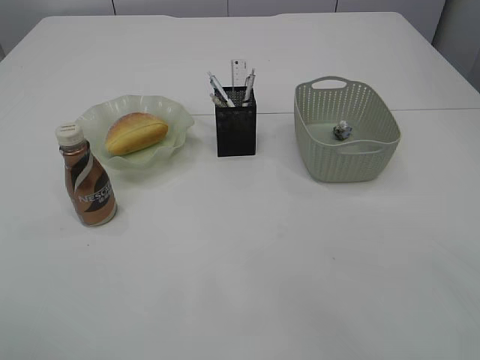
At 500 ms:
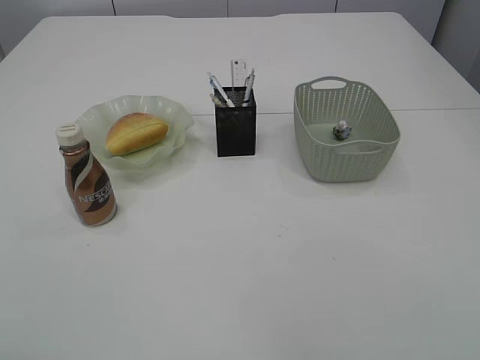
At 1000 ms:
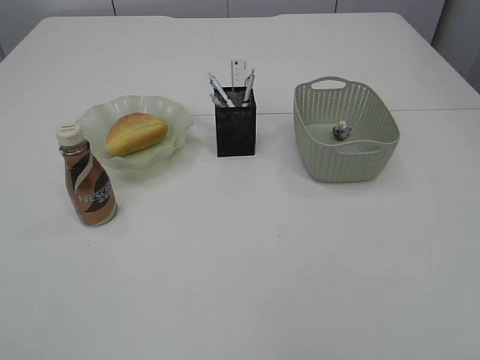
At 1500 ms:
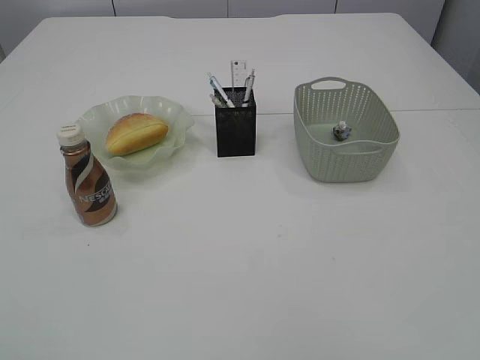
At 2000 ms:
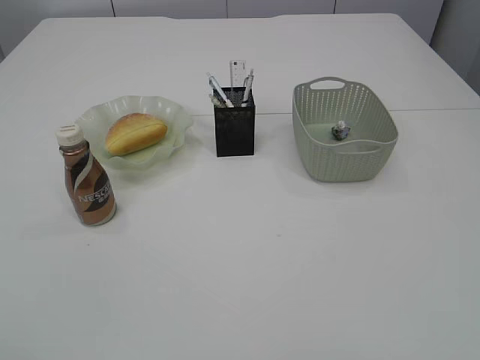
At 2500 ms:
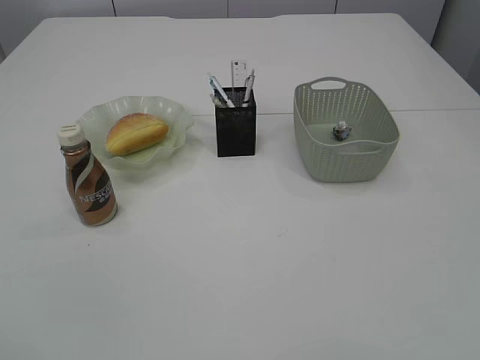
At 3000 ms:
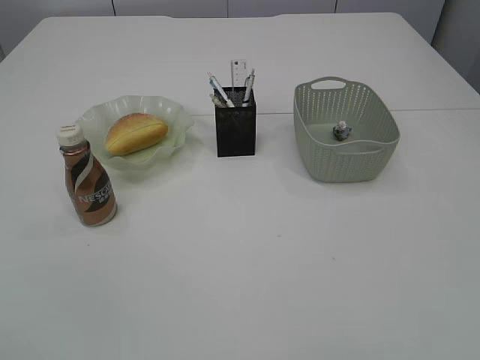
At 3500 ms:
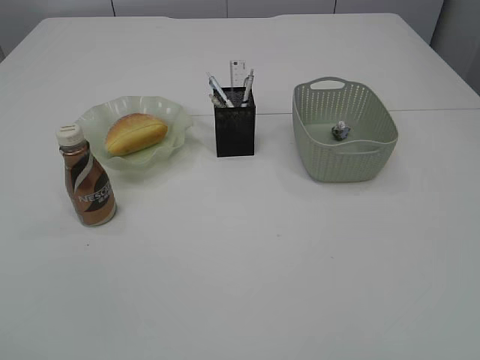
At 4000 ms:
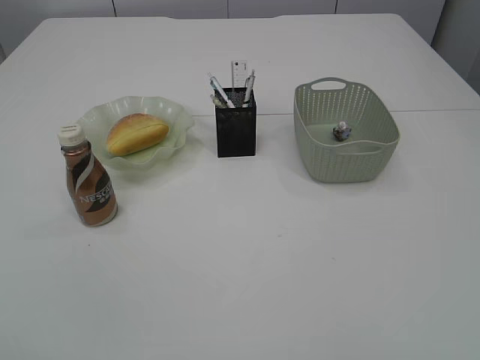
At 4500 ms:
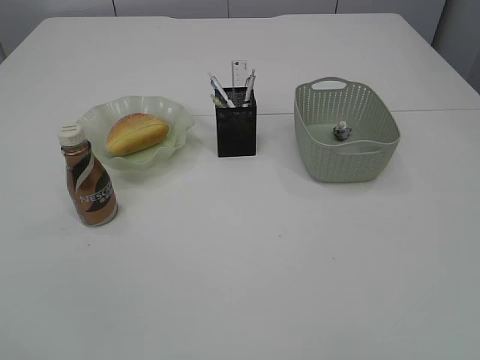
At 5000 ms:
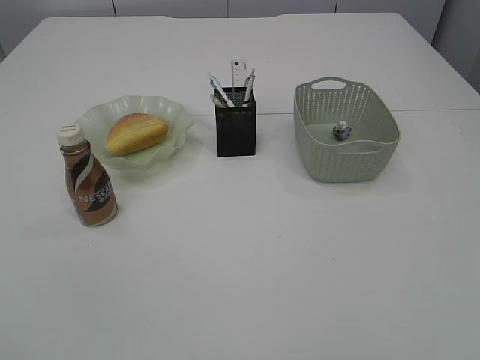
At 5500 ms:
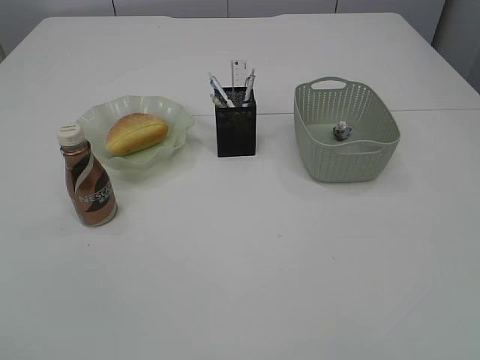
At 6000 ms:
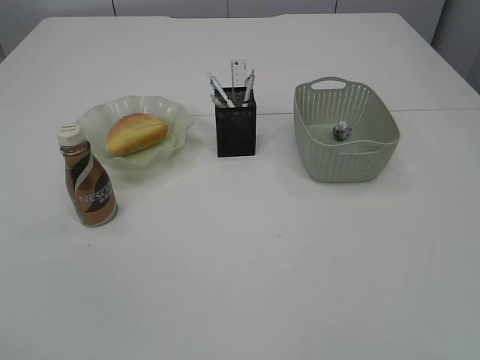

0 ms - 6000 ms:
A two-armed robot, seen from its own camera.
0 ms - 2000 ms: The right gripper is displaced backward by approximately 40 cm. Meanwhile the left gripper goes some 25 cm backward.
2000 ms - 4000 ms: The left gripper ends up roughly 5 cm from where it was; the right gripper shifts about 5 cm downward.

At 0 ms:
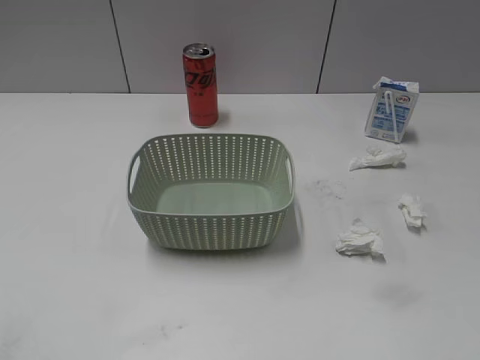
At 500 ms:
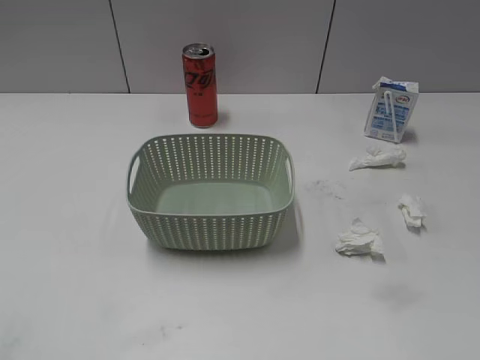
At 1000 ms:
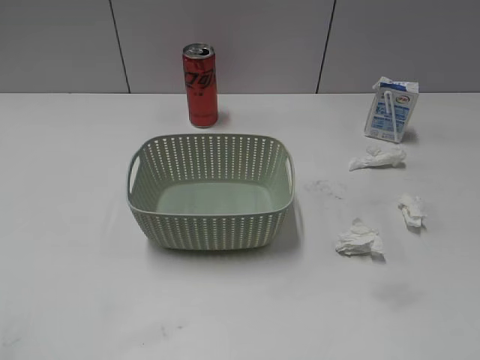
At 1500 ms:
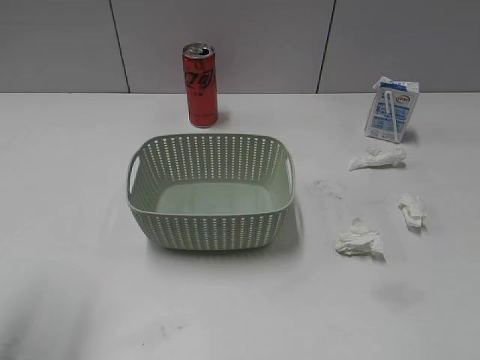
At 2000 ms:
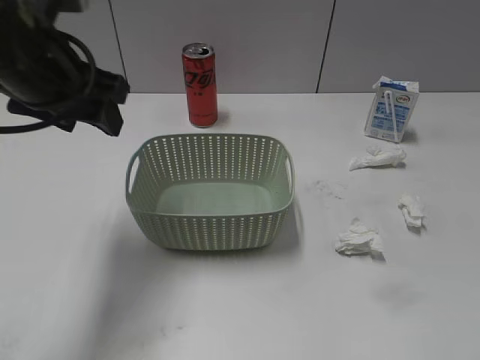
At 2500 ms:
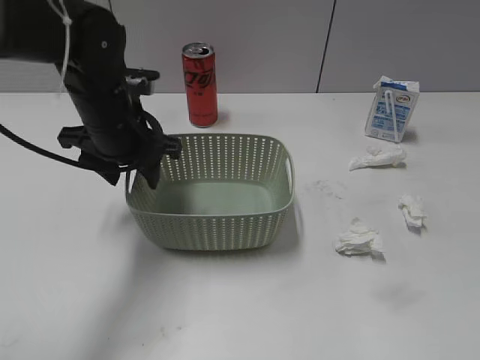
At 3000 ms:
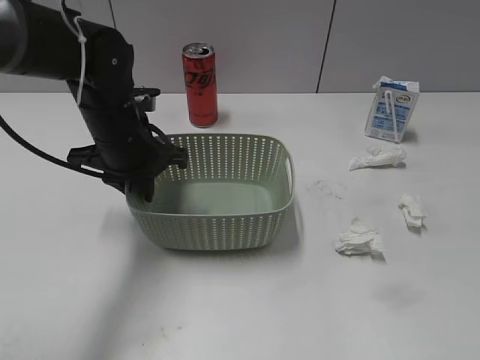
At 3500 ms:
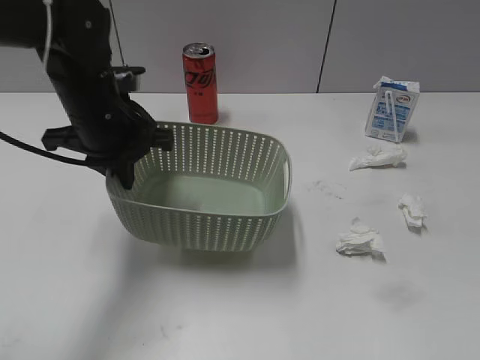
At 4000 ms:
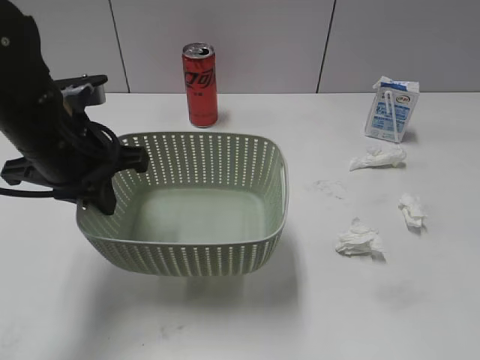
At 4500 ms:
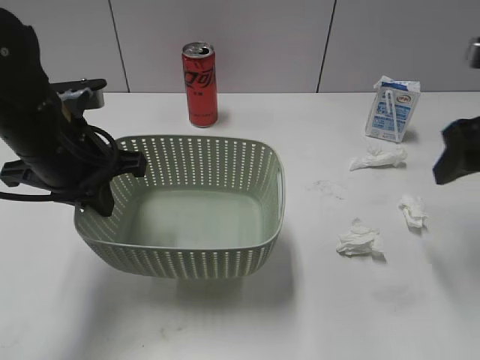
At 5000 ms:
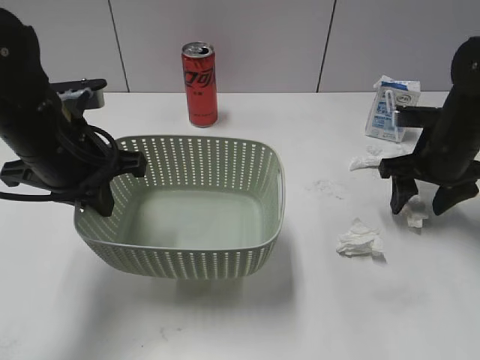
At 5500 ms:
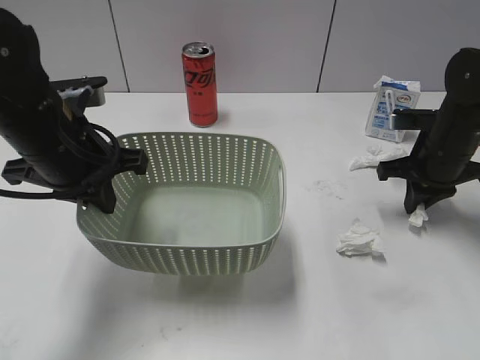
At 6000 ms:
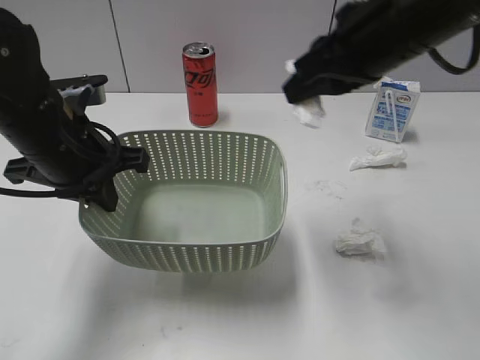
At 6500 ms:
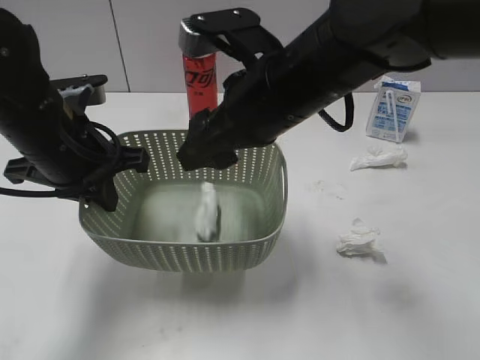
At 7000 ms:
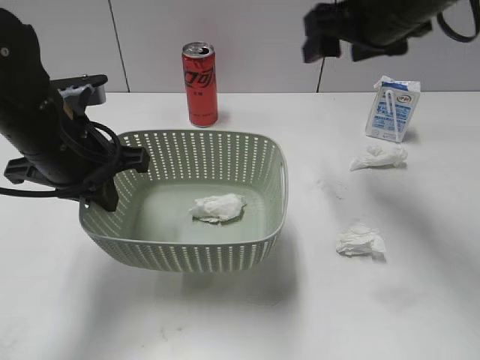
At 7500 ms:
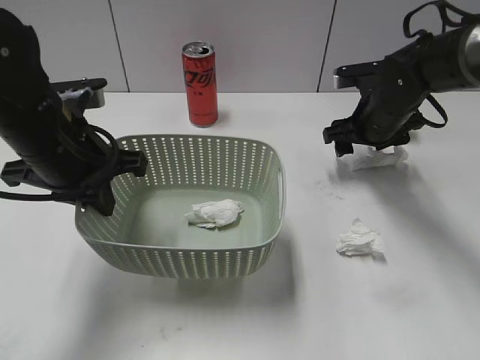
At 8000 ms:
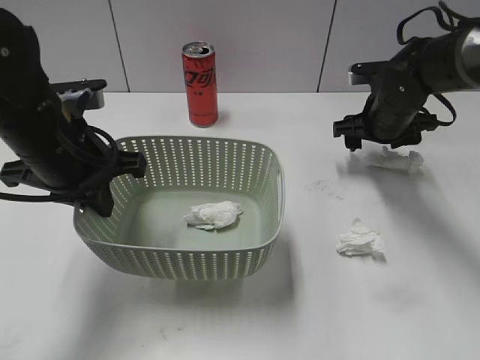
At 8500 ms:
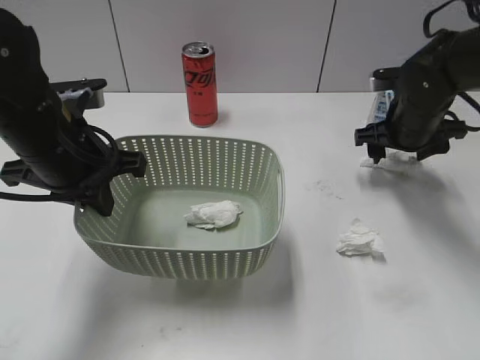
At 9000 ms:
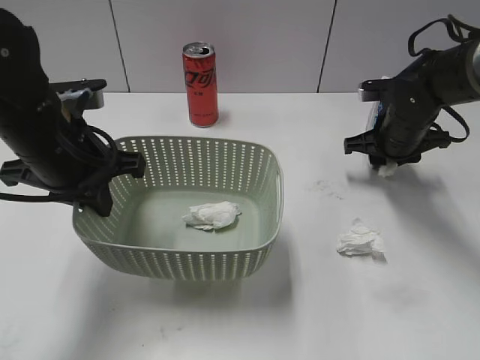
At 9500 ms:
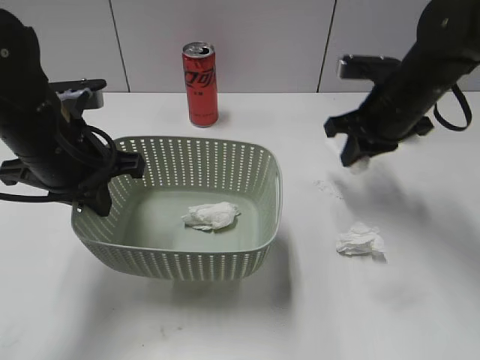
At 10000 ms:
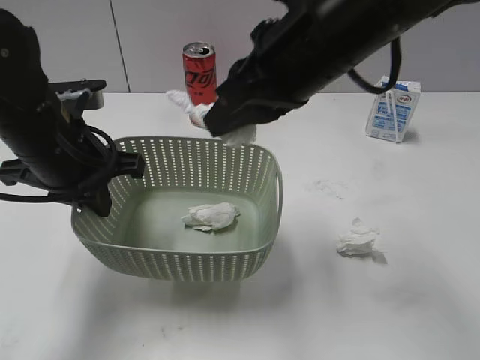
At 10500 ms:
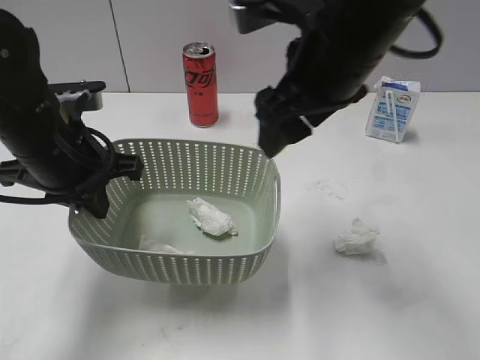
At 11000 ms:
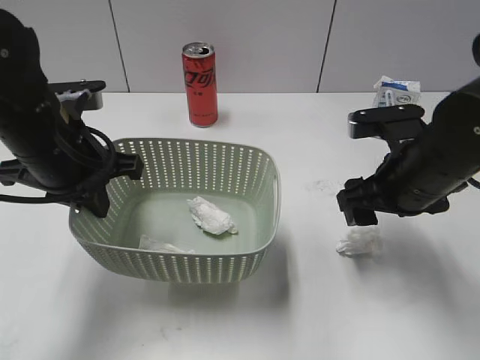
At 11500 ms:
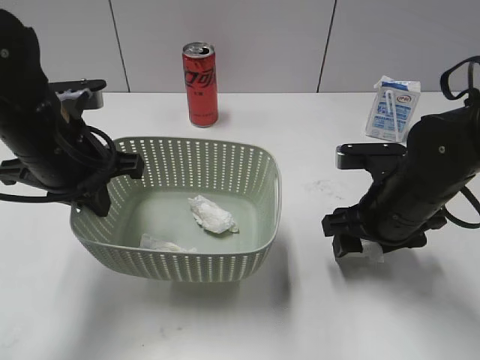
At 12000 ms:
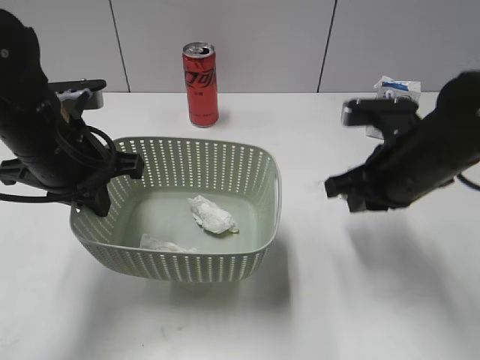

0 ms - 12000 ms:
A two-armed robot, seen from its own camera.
Step, 1500 ms - 3000 ms: Grasp the basket with left gripper.
Step, 3500 ms - 4000 ms: Lift the basket with left gripper.
Step, 4500 ms - 5500 ms: Grasp the waste paper with right gripper.
Step, 6000 ms - 6500 ms: Place the waste paper in the basket with right gripper.
Step, 7000 ms - 9000 ms: Grasp the waste paper with right gripper.
Step, 9500 ms - 10000 ms: Place the waste paper in the basket with right gripper.
Step, 10500 ms - 11500 ms: Grasp the waste paper with right gripper.
2000 ms - 4000 ms: The left gripper is displaced downward by approximately 5 cm, and closes.
4000 ms - 6000 ms: The right gripper goes some 30 cm forward and to the left, and closes its fingers.
6000 ms - 8000 ms: The right gripper goes roughly 25 cm downward, forward and to the right, and opens.
8000 ms - 10000 ms: The right gripper goes roughly 25 cm upward, backward and to the left, and closes up.
10000 ms - 12000 ms: The right gripper is displaced downward and to the right by roughly 15 cm, and opens, then closes once more.

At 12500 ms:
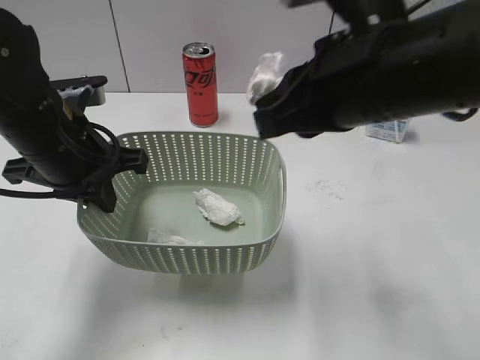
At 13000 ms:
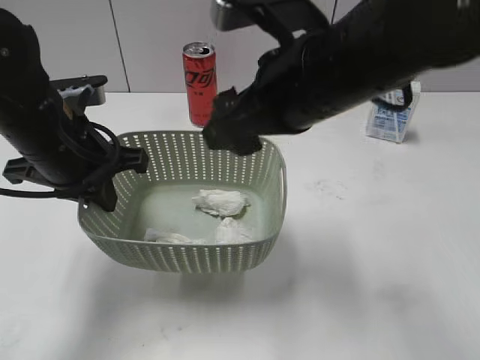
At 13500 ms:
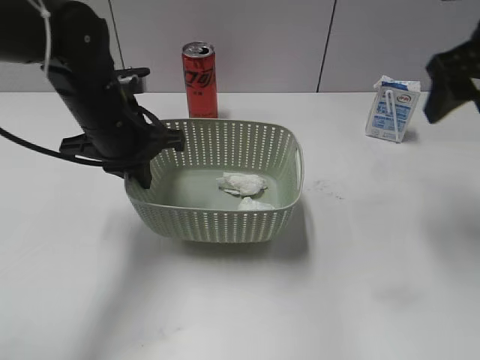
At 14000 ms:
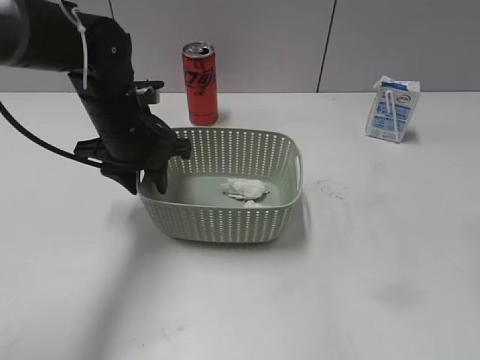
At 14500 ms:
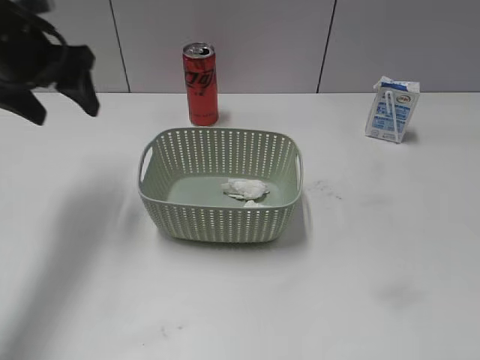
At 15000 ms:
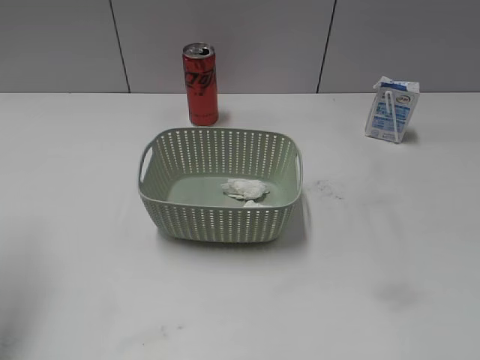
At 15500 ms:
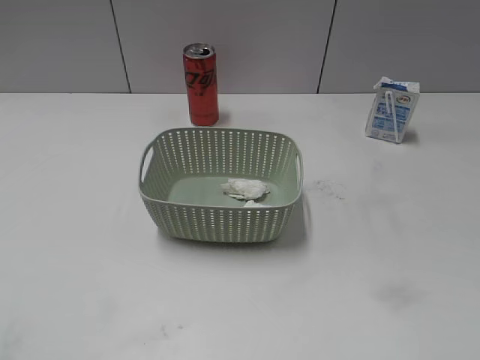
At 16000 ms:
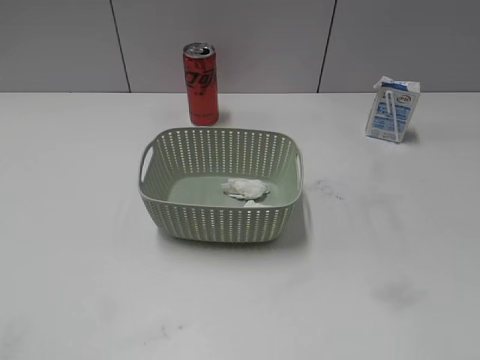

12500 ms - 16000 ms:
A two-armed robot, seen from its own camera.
Step, 13500 ms - 14000 ms: Place the basket on the table with left gripper.
12500 ms - 14500 ms: The left gripper heads forward, to the left and upward, covering some 15 cm, and opens. The right gripper heads to the right and backward, covering approximately 25 cm, and opens its fingers.
14500 ms - 16000 ms: The left gripper travels backward by about 35 cm.
